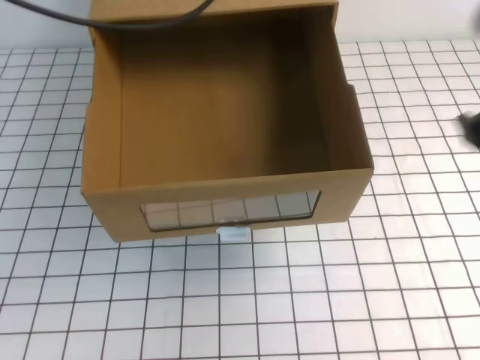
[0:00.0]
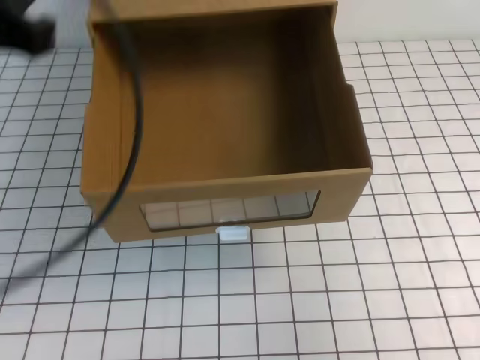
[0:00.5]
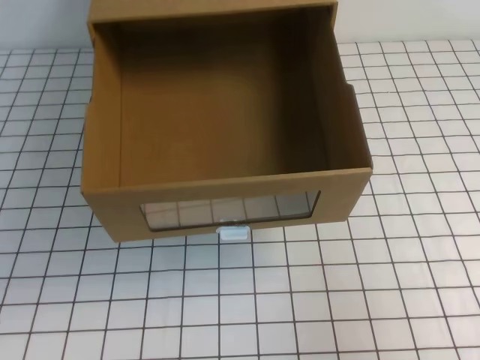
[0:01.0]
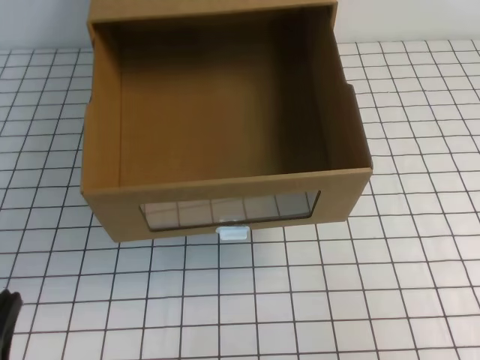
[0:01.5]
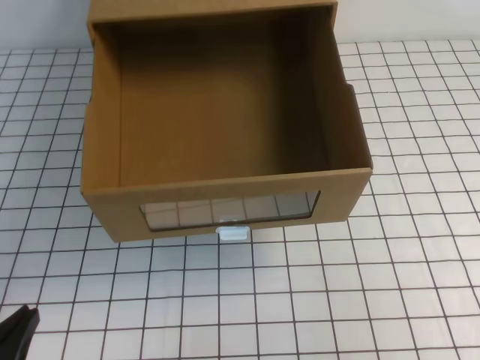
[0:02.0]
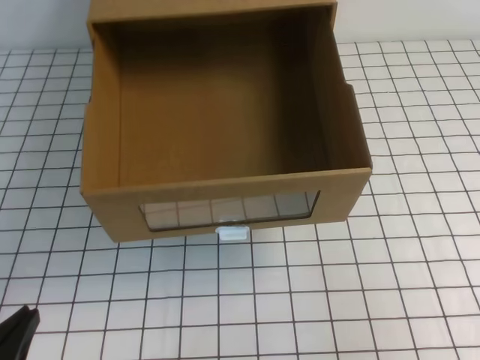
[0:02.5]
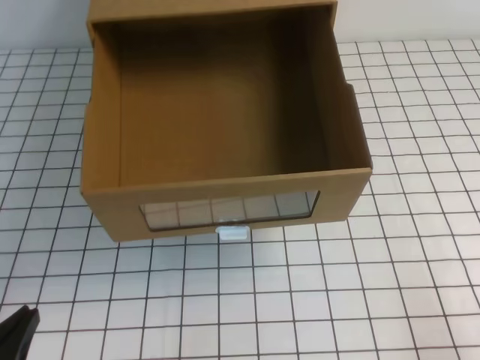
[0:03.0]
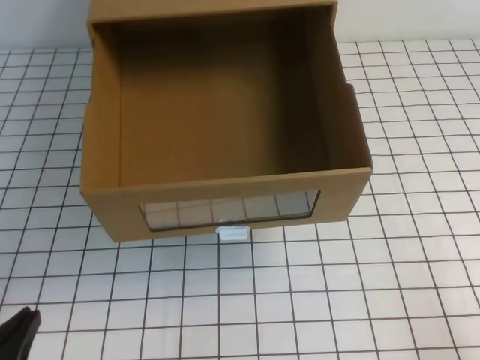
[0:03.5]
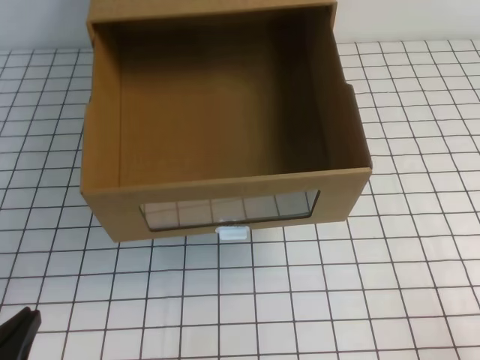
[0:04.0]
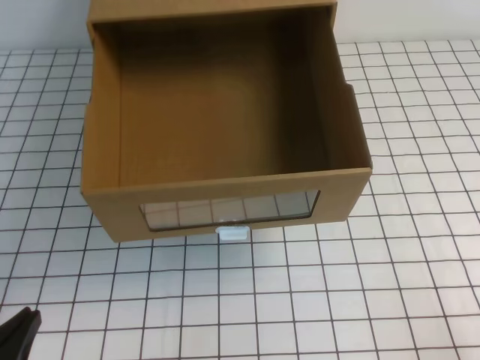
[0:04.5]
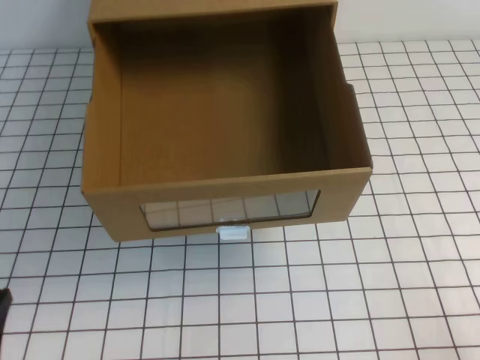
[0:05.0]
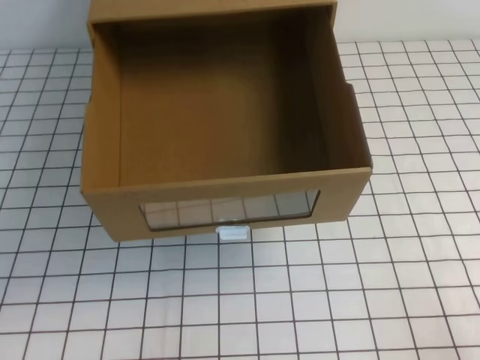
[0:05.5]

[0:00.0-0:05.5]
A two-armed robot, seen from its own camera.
Task of the whole recording: open the shoebox on the white tablecloth.
Step, 0:00.0 to 0:05.5: Open the shoe box.
0:00.0 to 0:02.0: The right gripper moves downward, to the right and backward, approximately 15 cm, while the left gripper heads downward and backward, covering approximately 40 cm.
0:02.0 to 0:03.5: The right gripper travels downward and backward by some 15 cm.
0:03.5 to 0:05.5: The grippers move only a little.
